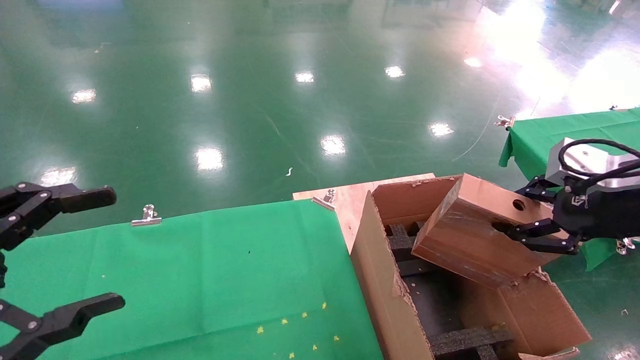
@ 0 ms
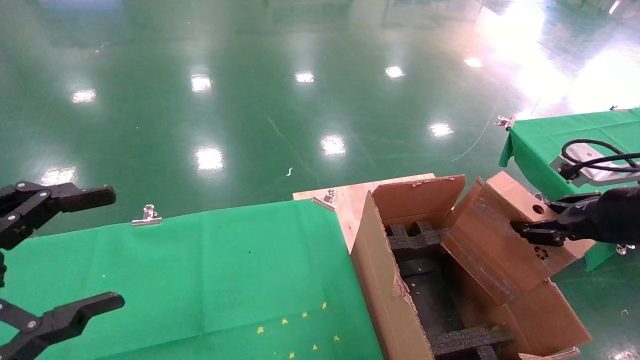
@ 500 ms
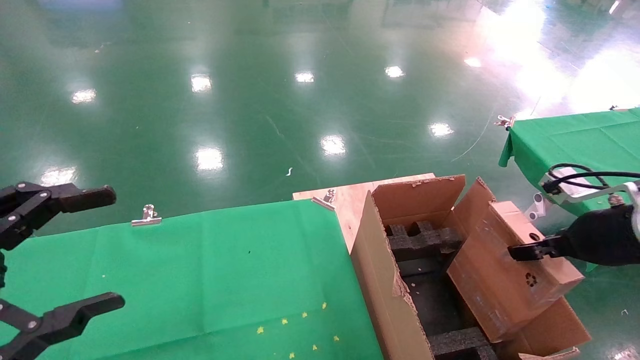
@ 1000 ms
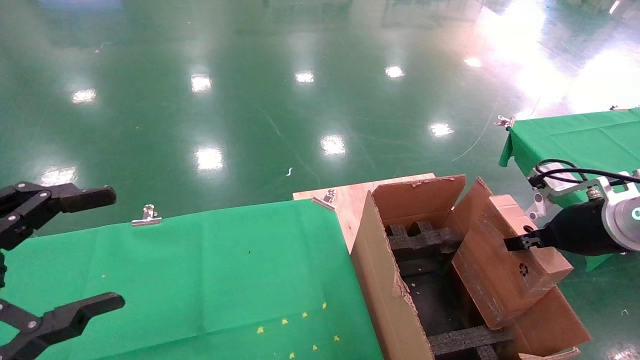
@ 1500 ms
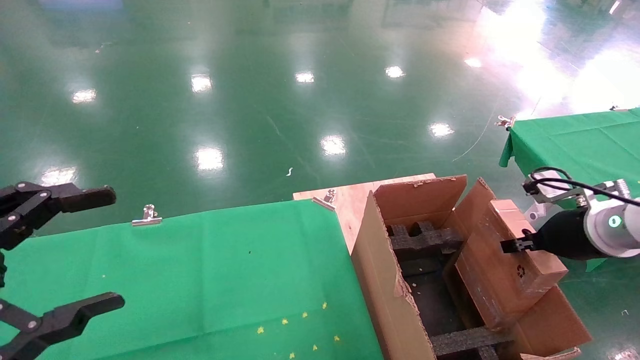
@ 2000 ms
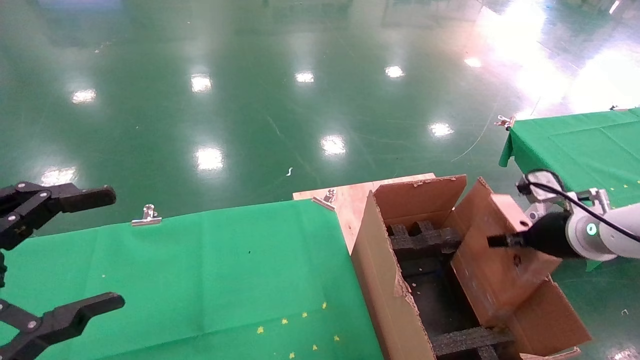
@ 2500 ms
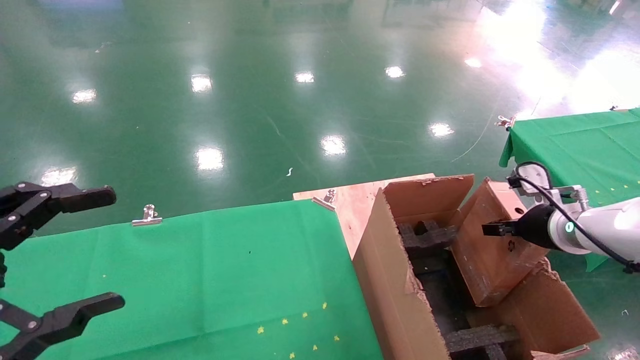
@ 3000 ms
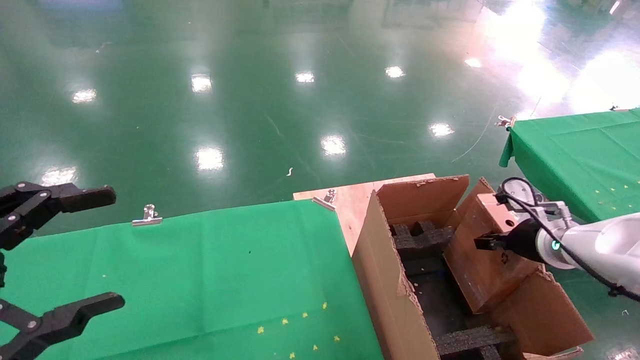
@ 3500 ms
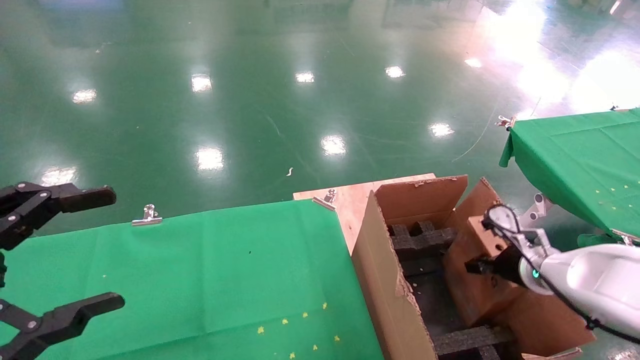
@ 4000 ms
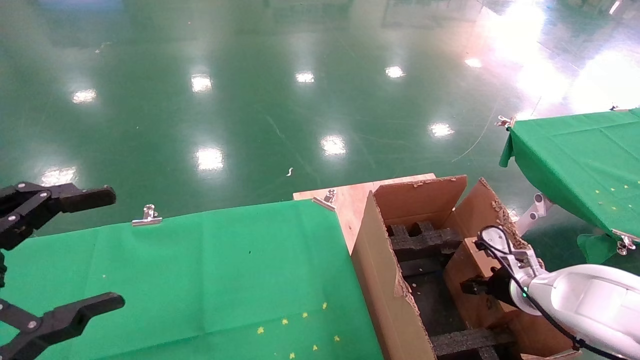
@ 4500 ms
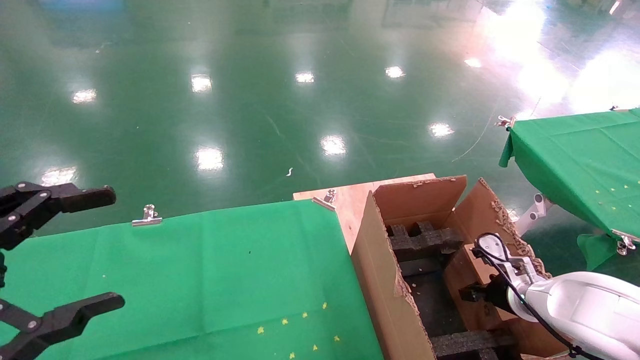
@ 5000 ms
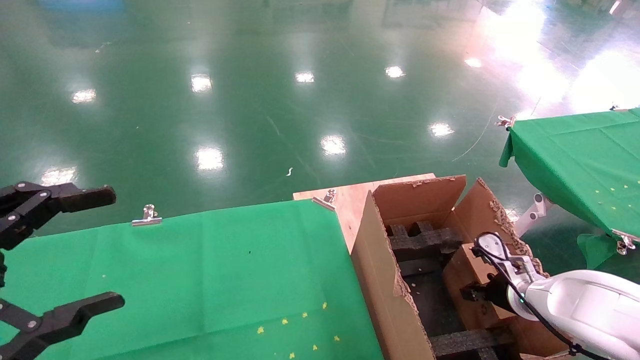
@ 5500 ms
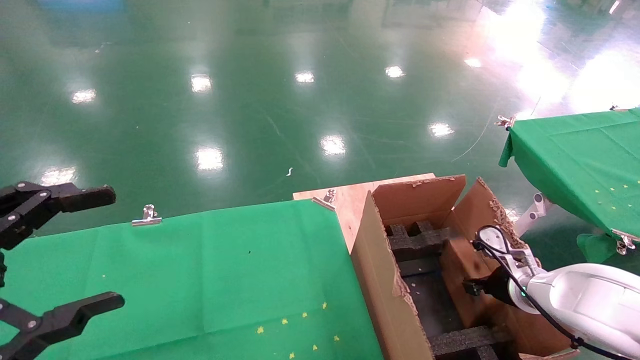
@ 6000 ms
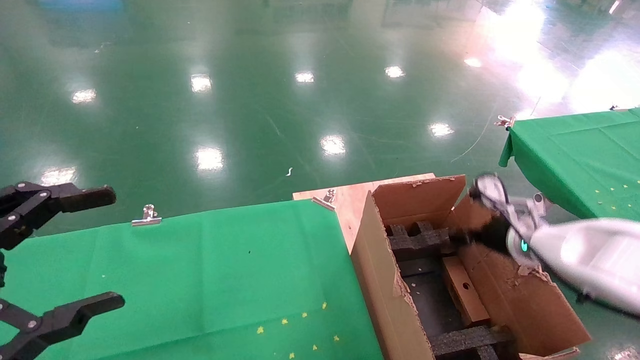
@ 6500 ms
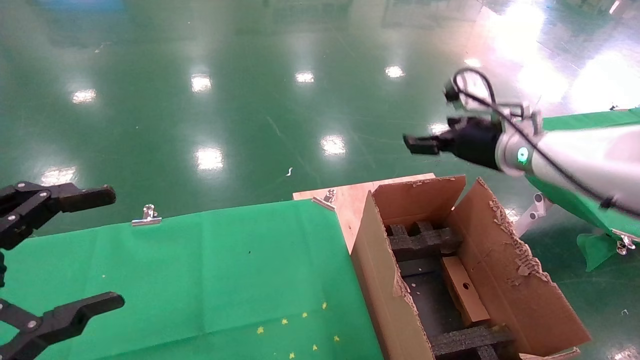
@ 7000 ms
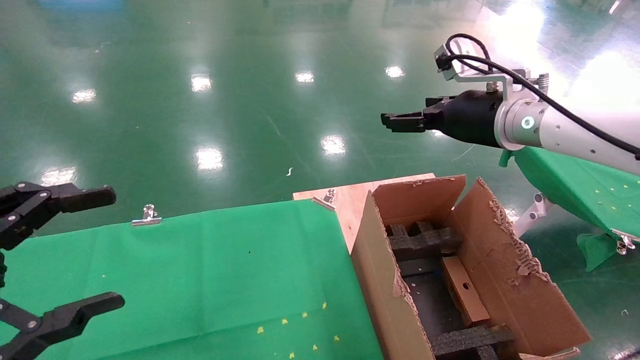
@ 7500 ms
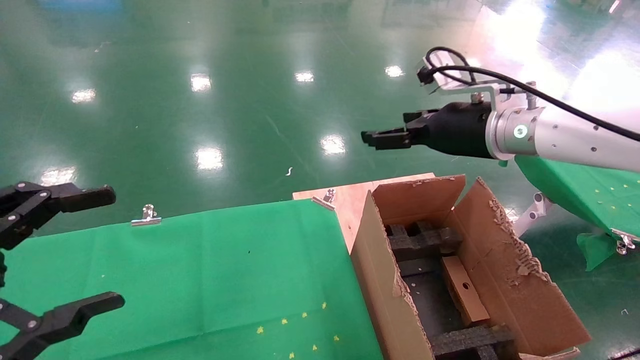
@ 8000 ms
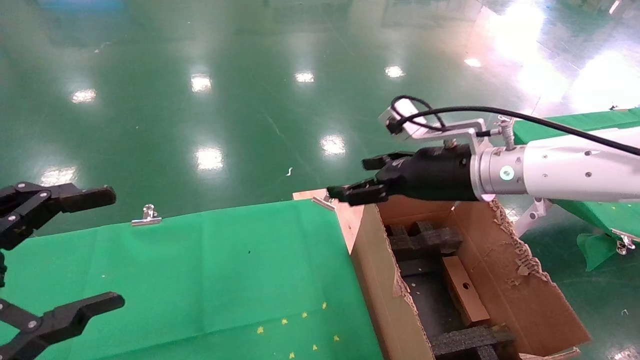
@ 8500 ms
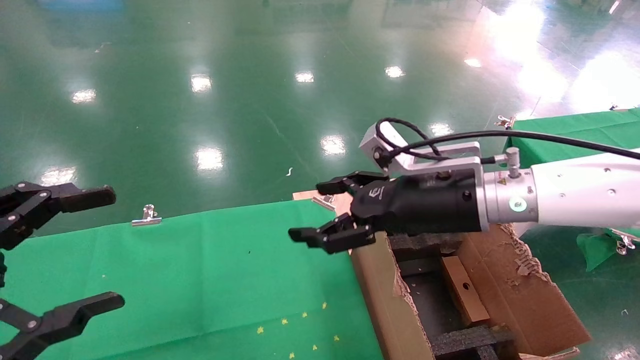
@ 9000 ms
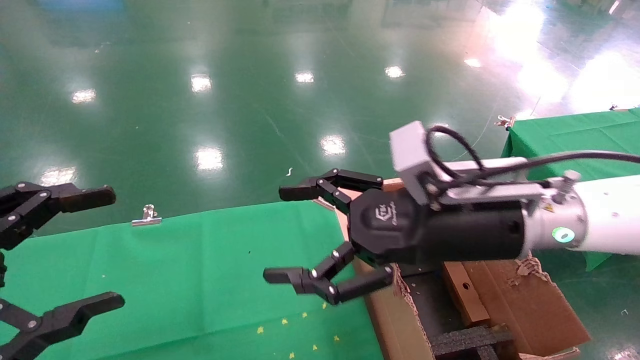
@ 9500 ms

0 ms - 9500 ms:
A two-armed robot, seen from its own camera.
Task of the whole recording: using a robotic arm to pick up a cardboard box and palace it the carton.
Step, 0 ms - 6500 ms: Place the mouse and the power cord paper box into the container.
0 ms - 2000 ms: The right gripper shifts approximately 15 cm downward and forward.
2000 ms - 4000 ms: The right gripper goes approximately 10 cm downward and forward.
4000 ms - 5500 ms: The grippers stay close to where they were, moving slightly.
5500 ms - 7500 ms: The right gripper travels upward by approximately 30 cm, and opens.
7500 ms - 9500 ms: The right gripper shifts roughly 15 cm backward, to the left and downward.
